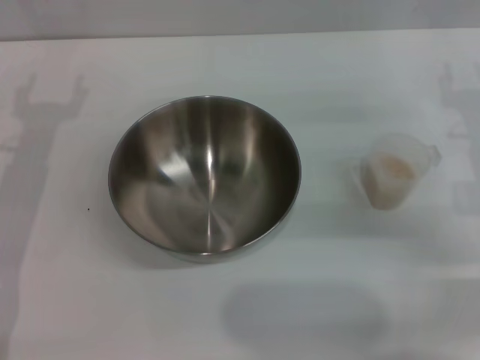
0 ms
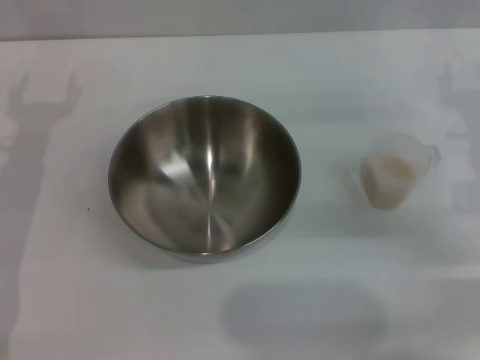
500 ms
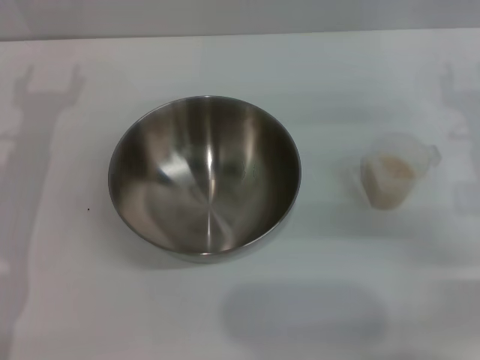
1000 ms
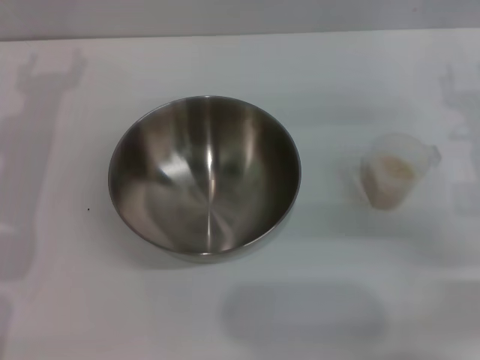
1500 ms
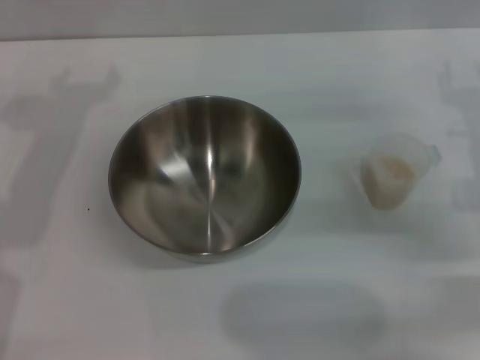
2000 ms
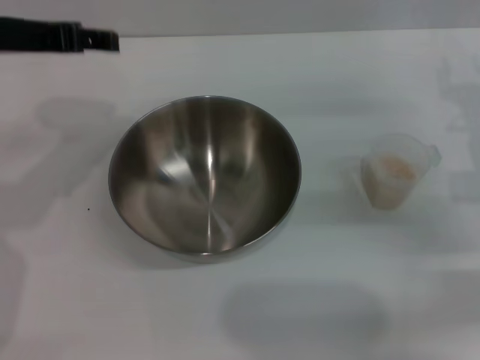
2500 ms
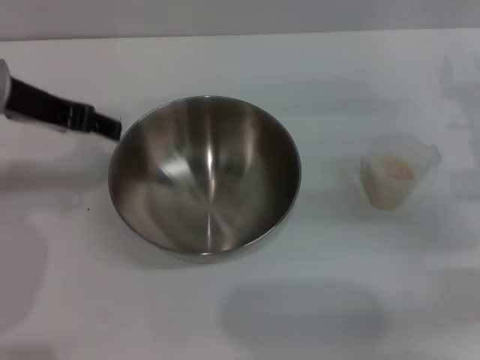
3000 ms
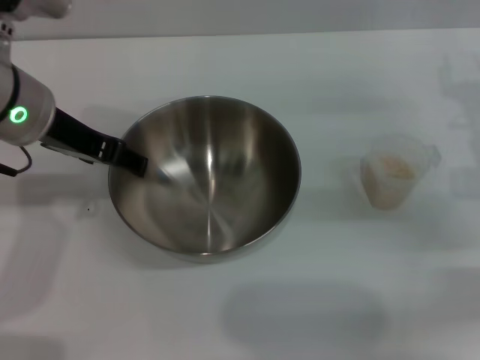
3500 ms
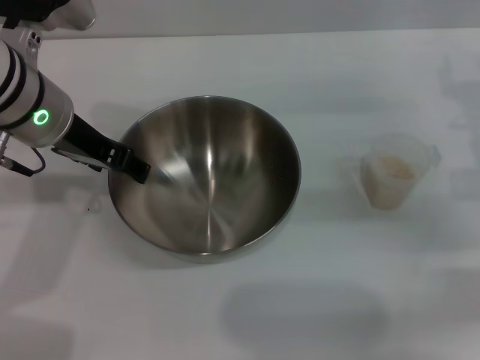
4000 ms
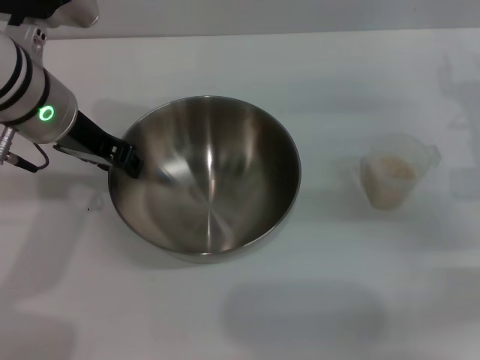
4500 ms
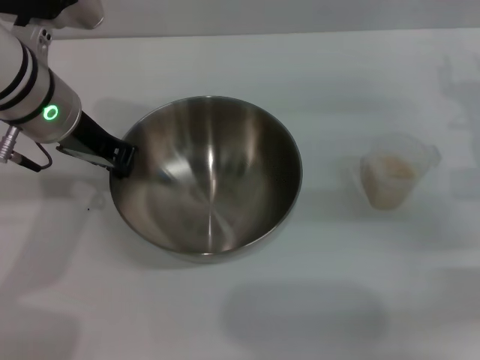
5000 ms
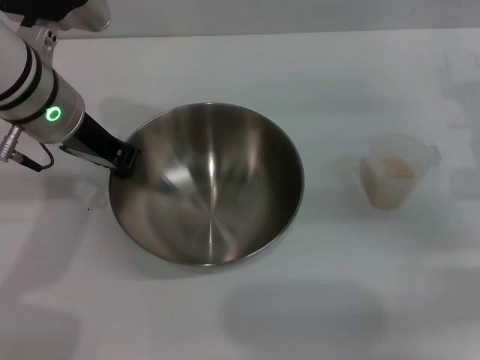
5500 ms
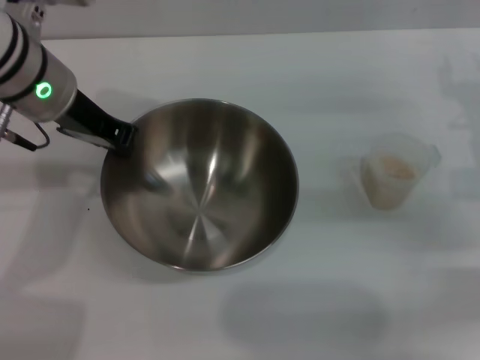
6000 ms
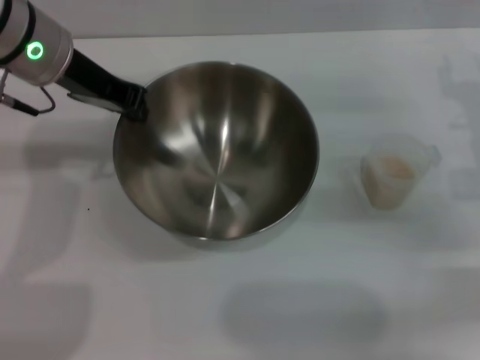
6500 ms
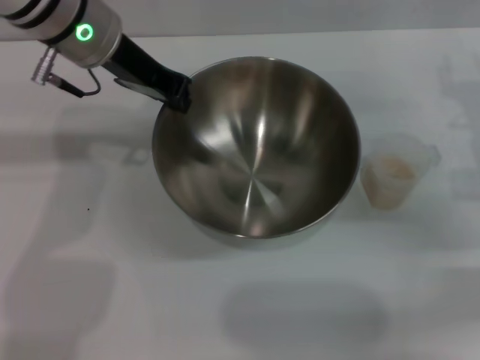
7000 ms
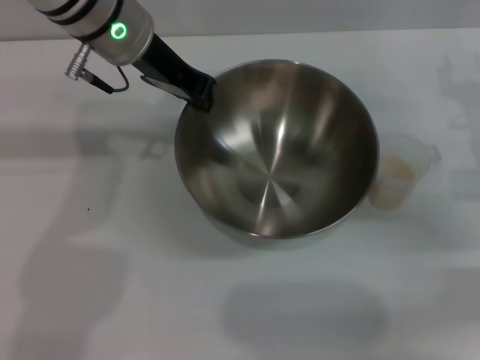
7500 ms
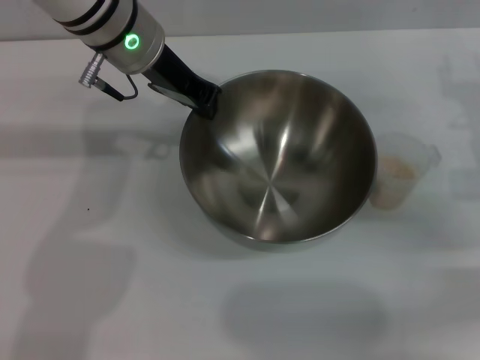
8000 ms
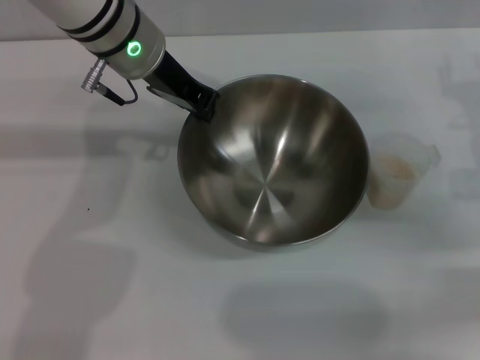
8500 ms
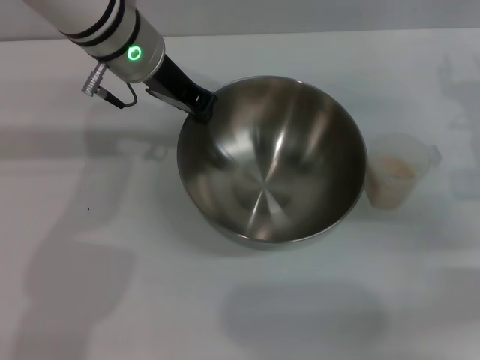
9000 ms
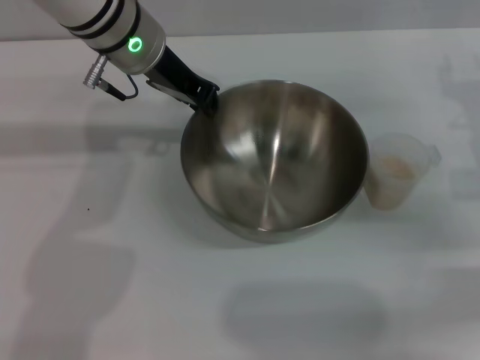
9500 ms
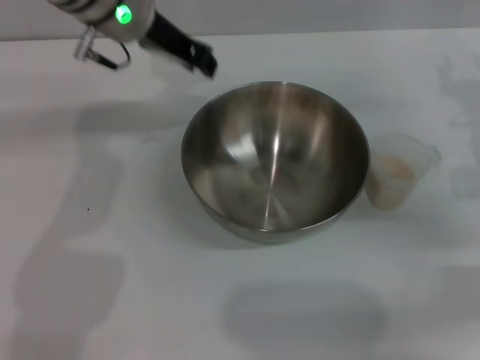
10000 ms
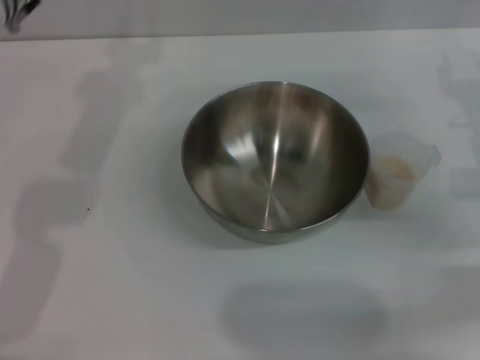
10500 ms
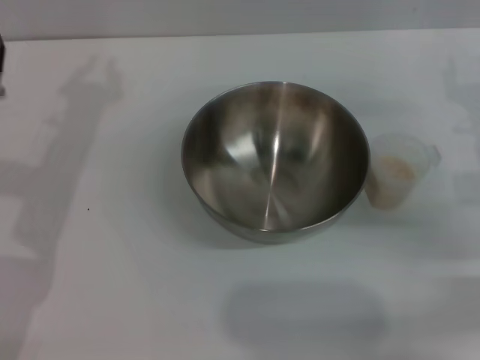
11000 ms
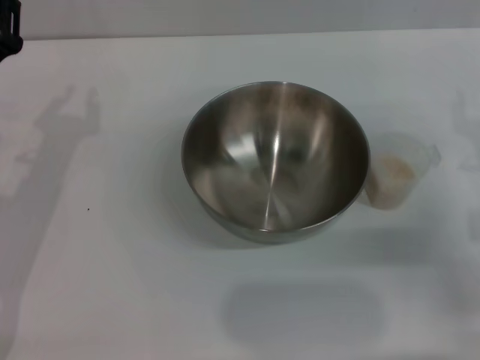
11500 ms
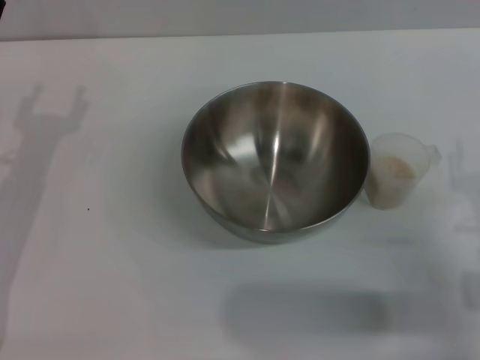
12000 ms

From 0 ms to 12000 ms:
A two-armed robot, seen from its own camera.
Task of the whole recording: Place the bowl in the middle of the table with one hand and pour the rice from the grain cup into it with the other hand.
Step, from 0 ms to 7500 ms: Pick up the bowl with the left gripper.
Step, from 8000 ms to 10500 ms: Place the bowl in the center of view with the left gripper.
From 2000 ms to 4000 ms: The left gripper moves to the right, roughly 5 cm.
From 4000 ms to 6000 ms: The left gripper closes.
From 6000 ms to 8000 ms: The left gripper is displaced to the right and forward by roughly 10 cm.
From 8000 ms to 10000 ms: The grippers make only small movements.
From 10000 ms to 12000 ms: The right gripper moves backward and downward, roughly 15 cm. Meanwhile the left gripper moves to the left, downward and backward, approximately 25 cm.

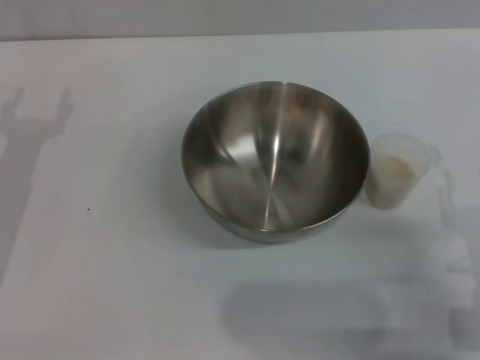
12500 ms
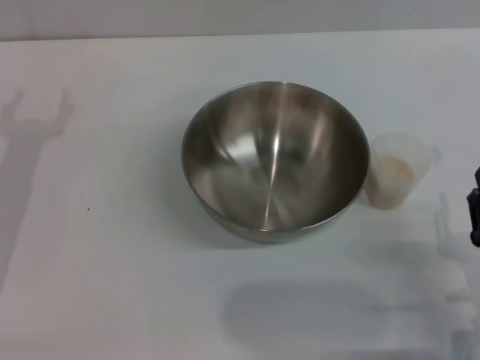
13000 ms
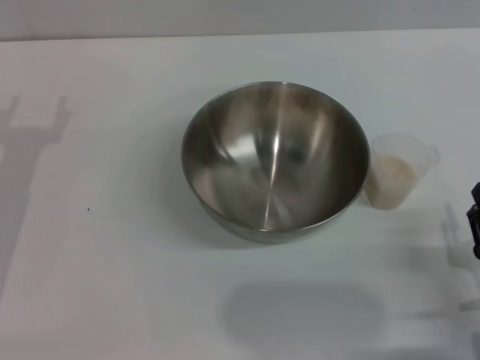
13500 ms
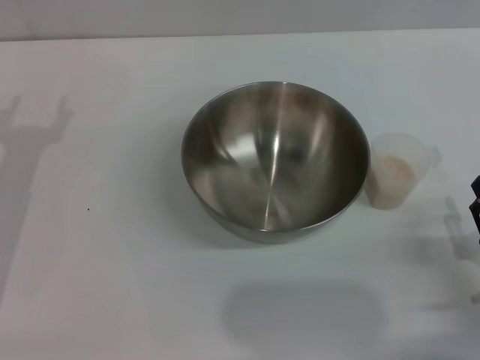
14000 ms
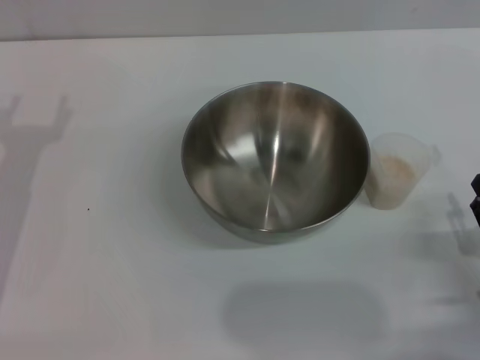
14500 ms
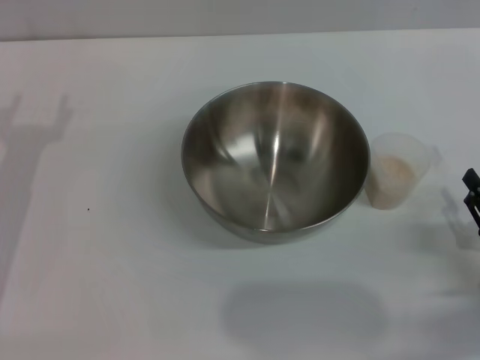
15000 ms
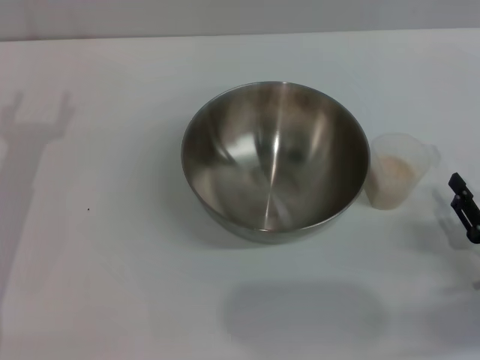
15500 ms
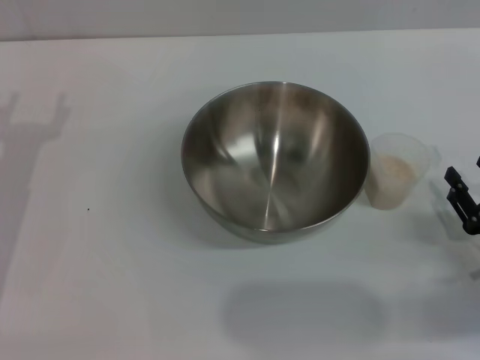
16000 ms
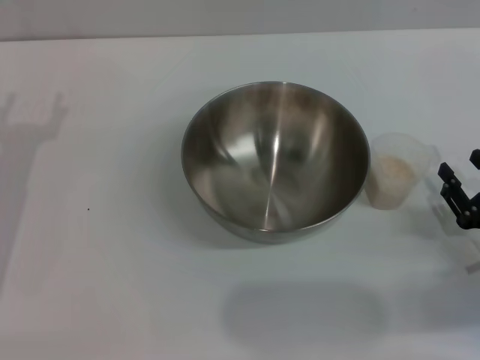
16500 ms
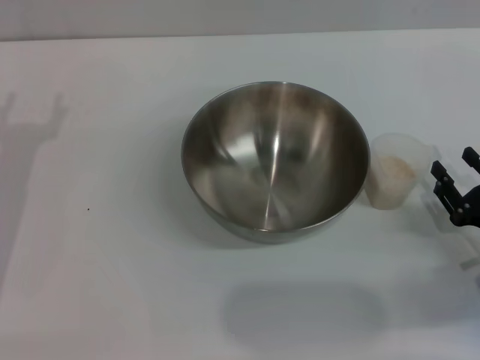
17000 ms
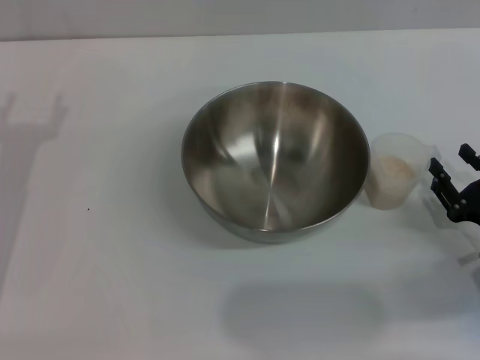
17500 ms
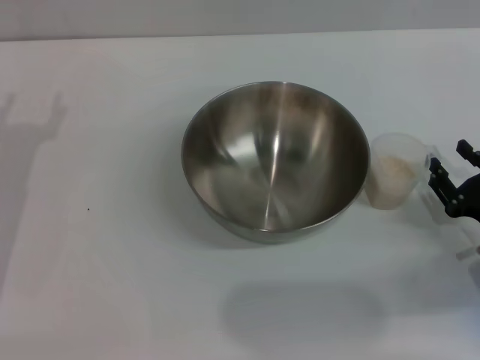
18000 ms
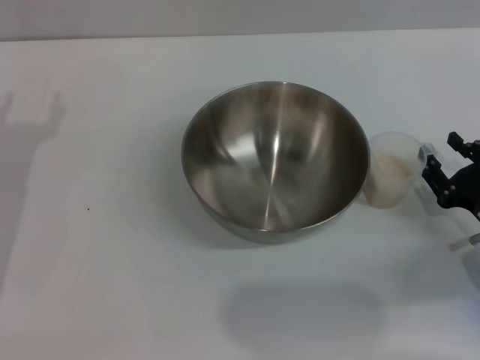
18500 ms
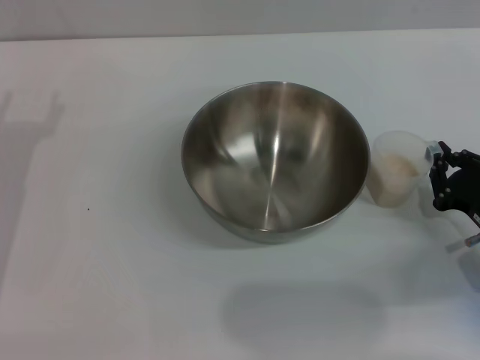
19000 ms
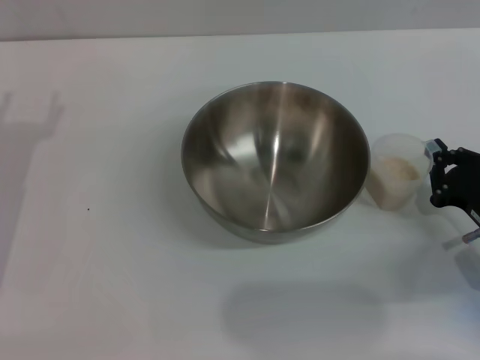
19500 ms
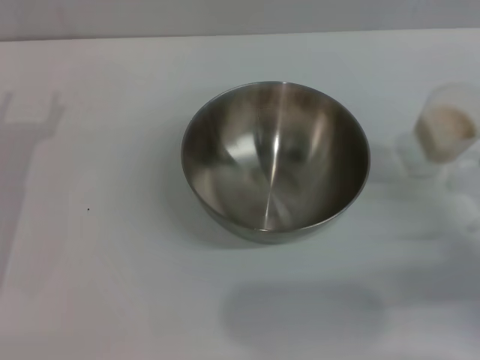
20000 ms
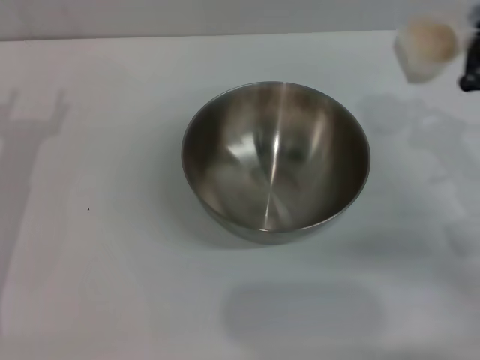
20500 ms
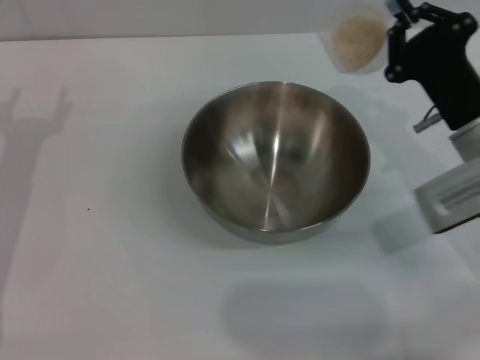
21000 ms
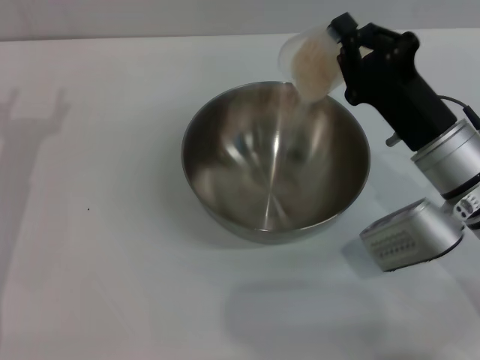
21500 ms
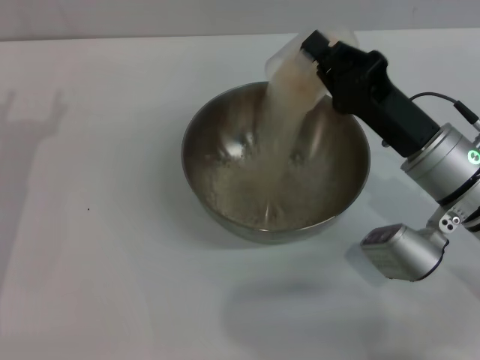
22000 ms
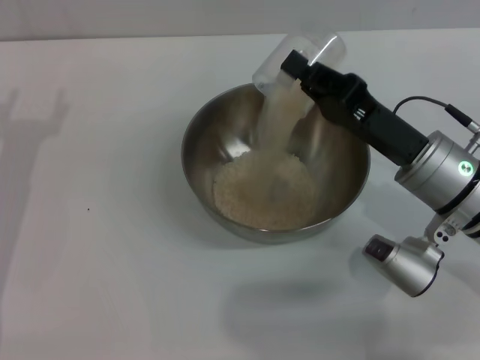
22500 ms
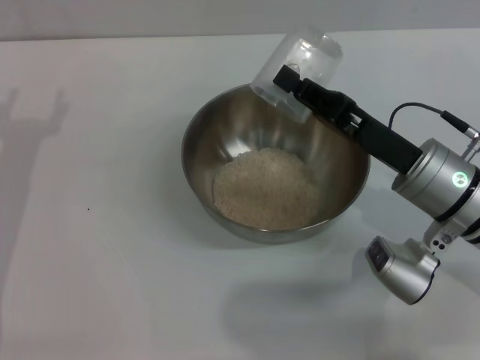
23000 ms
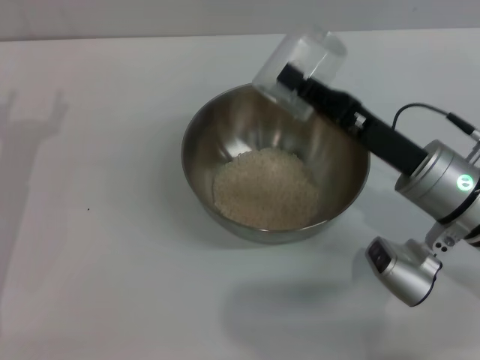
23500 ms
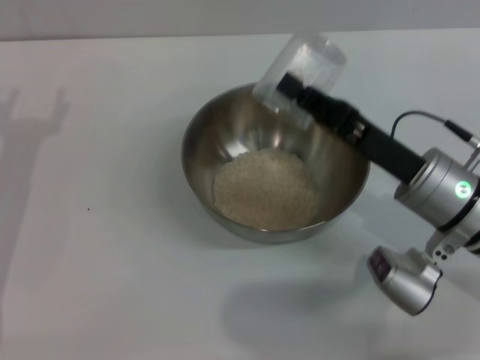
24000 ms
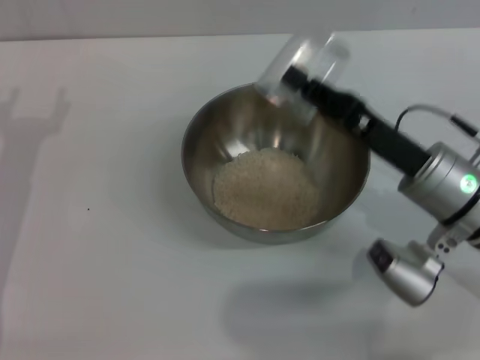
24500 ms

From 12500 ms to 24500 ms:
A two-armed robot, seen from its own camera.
Task of the whole recording: Place the bowl in the middle of the table with one hand and pour the rice from the grain cup into it with the other hand.
Step, from 12500 ms to 20000 ms: Pick up the cup with rice in it with the right gripper.
Step, from 20500 ms to 22500 ms: Pour the rice from the cup into the bowl with the right gripper.
From 12500 ms to 14500 ms: The right gripper shifts some 5 cm to the right.
From 14500 ms to 16500 ms: There are only small adjustments of the grippers.
From 16500 ms to 18500 ms: The grippers stay close to where they were, moving slightly.
From 18500 ms to 20500 ms: The right gripper shifts approximately 10 cm upward and forward, and closes its fingers.
From 20500 ms to 22500 ms: The right gripper heads to the left, covering roughly 10 cm.
From 22500 ms to 24500 ms: The grippers make only small movements.

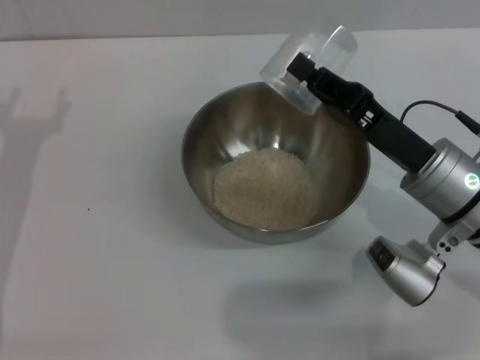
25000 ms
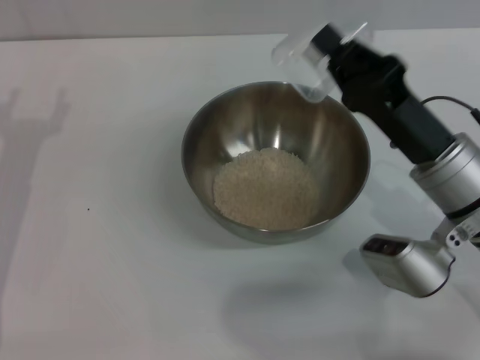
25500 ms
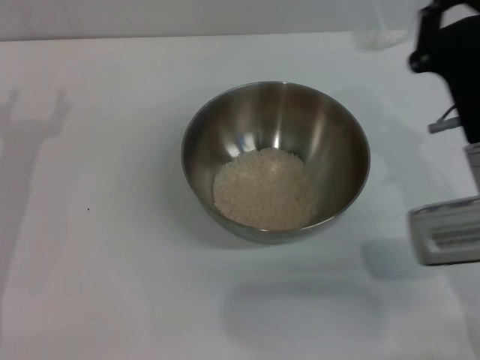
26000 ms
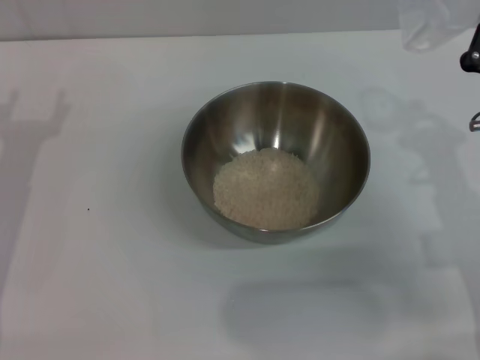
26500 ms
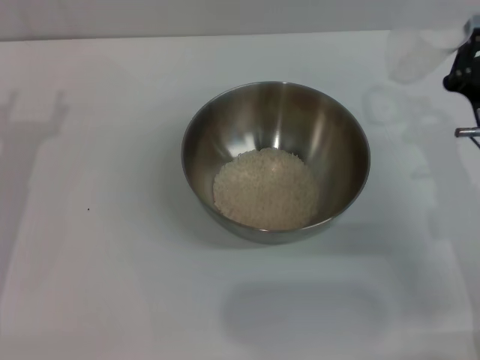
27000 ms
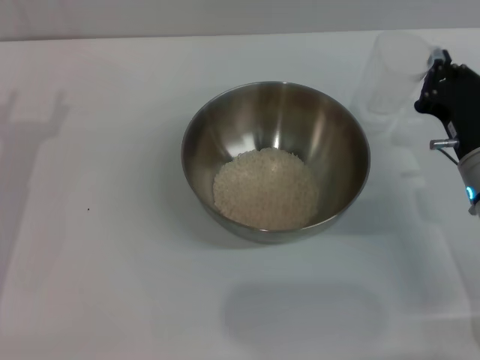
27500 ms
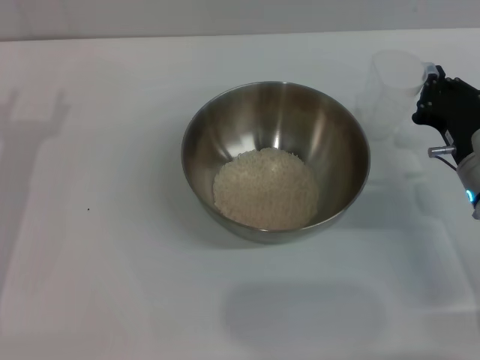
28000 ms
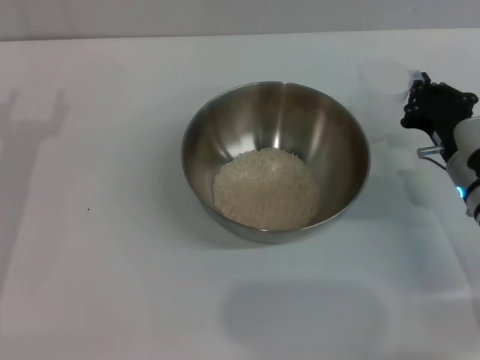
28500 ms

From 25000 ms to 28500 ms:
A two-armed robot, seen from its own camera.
Task of the whole recording: Place the bowl in the middle of the table with one hand and pour the rice from the grain cup into it with the other hand.
From 25000 ms to 27000 ms: The right gripper shifts about 5 cm to the right.
